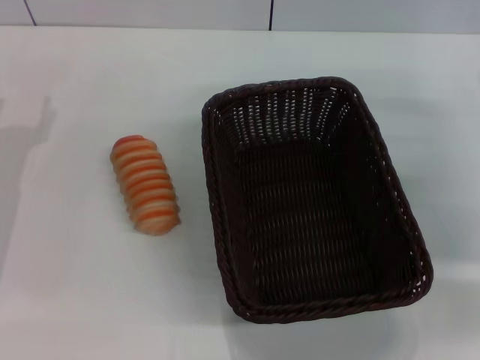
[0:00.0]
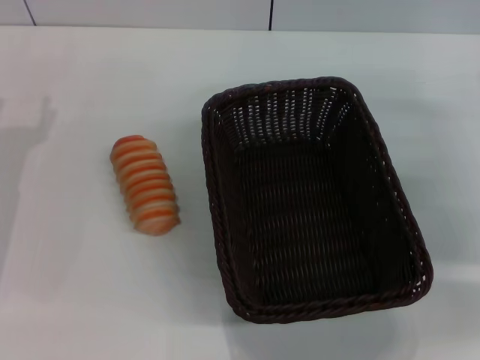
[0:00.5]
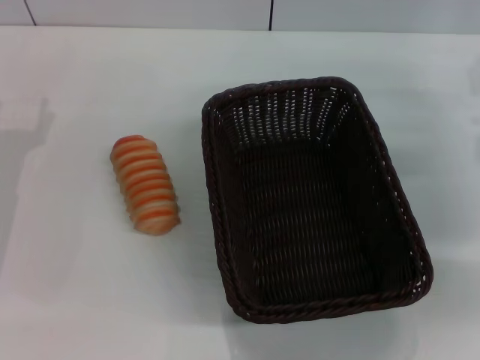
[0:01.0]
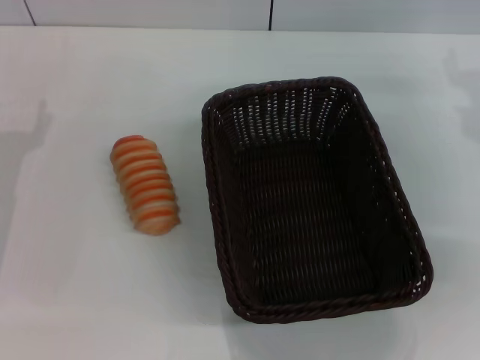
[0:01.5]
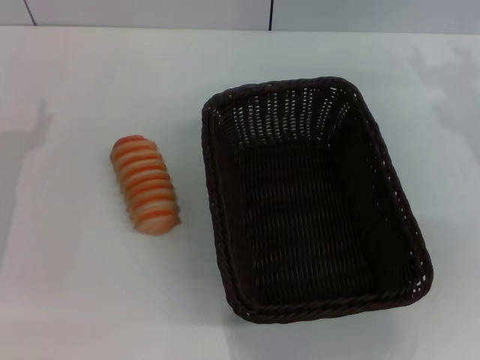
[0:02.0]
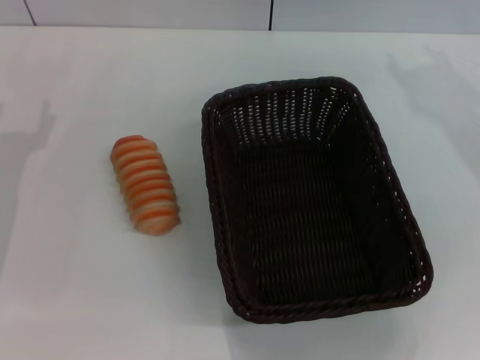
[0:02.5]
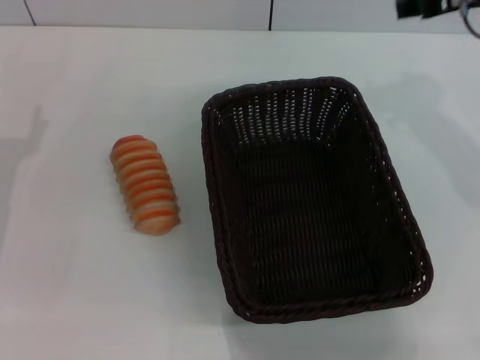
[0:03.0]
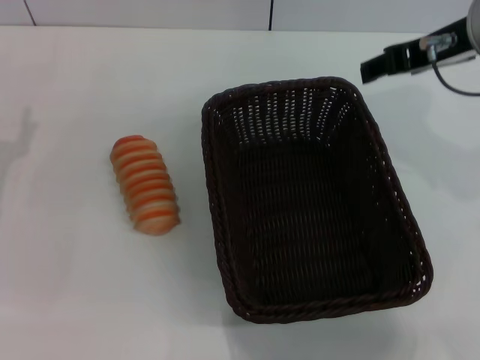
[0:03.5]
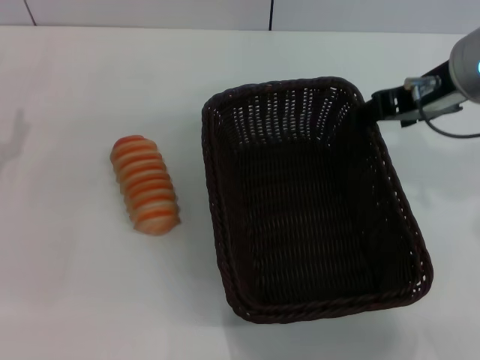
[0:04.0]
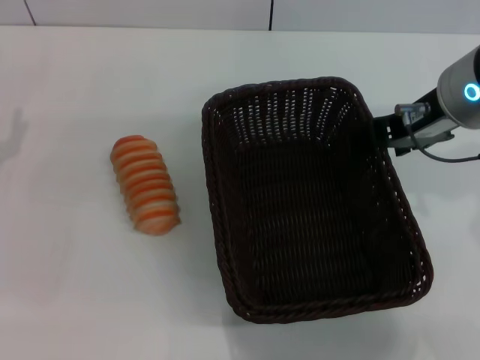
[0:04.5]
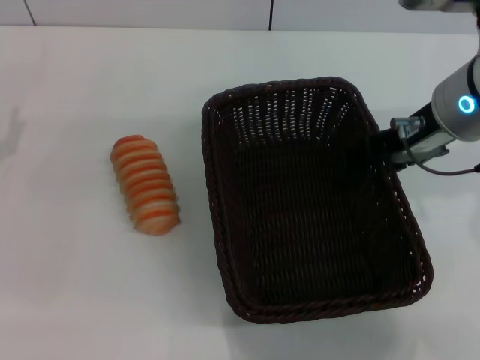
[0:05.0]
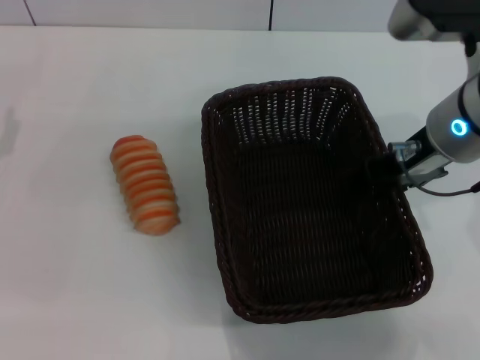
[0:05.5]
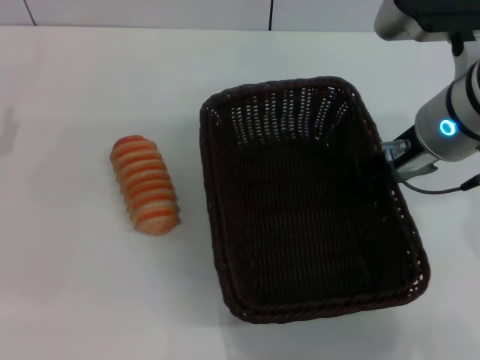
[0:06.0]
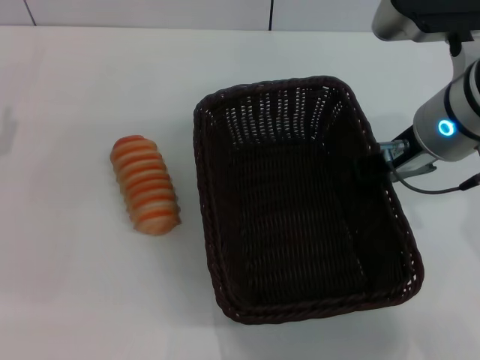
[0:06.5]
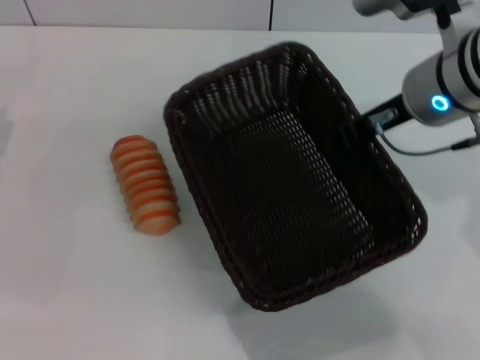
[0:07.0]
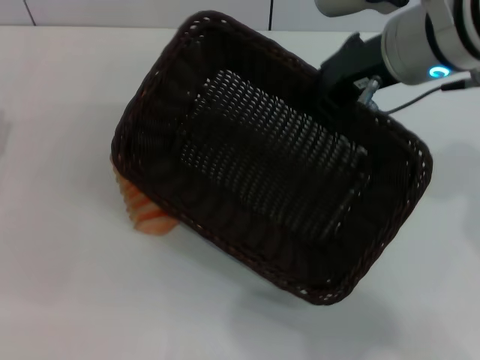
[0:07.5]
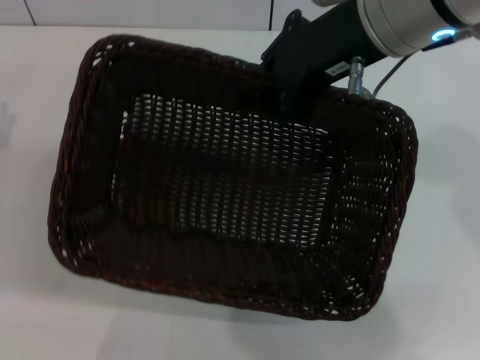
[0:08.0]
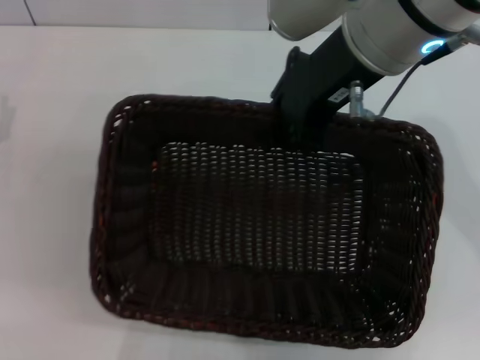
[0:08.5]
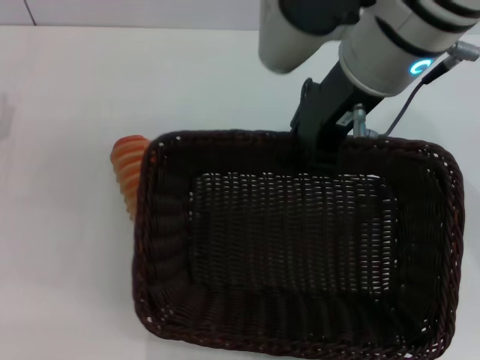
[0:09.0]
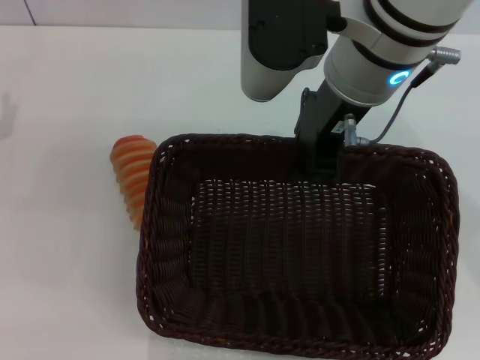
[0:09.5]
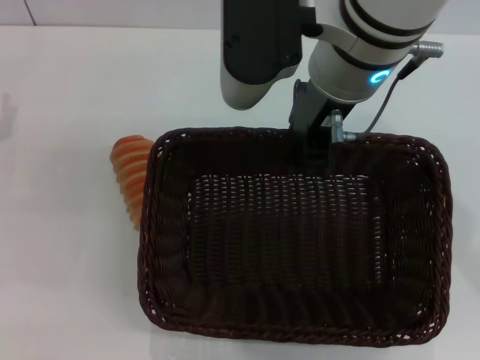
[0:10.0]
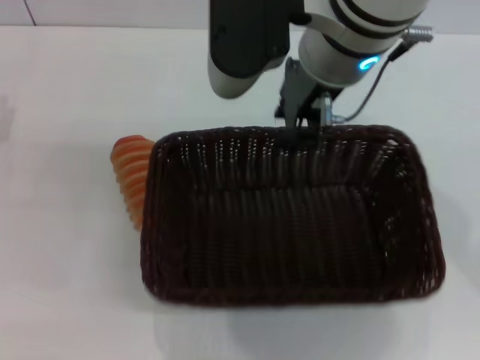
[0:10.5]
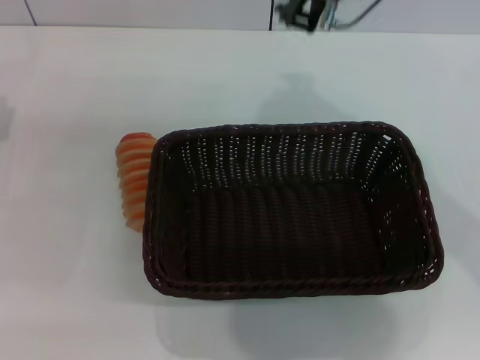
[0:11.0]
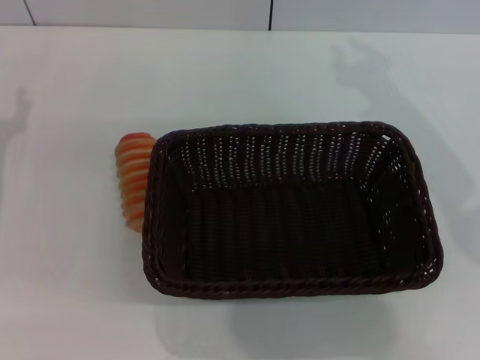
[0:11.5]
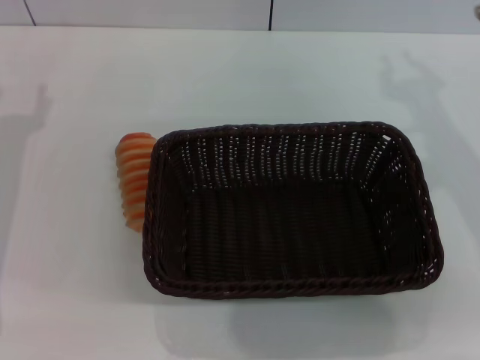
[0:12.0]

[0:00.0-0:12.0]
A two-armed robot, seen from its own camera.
Step, 0:00.0 to 0:07.5: Pick up the dark basket with the right gripper.
Step, 0:08.0 to 0:10.5: Place the dark basket in the center of view with the right gripper.
0:02.0 to 0:04.0: The right gripper travels to the left and upward by some 10 cm.
0:04.0 to 0:06.0: The right gripper closes its fingers.
0:06.0 to 0:08.0: The right gripper moves upward and to the left, approximately 10 cm, and closes its fingers.
0:08.0 to 0:10.0: The right gripper ends up about 5 cm from where it was.
0:10.0 to 0:12.0: The right gripper goes some 15 cm to the right.

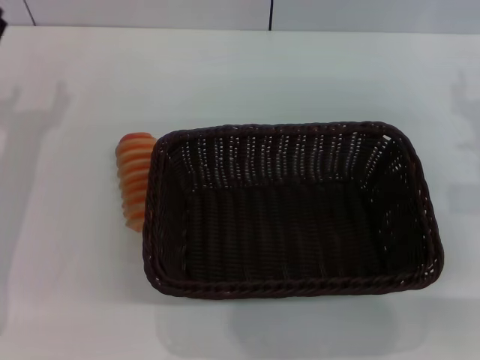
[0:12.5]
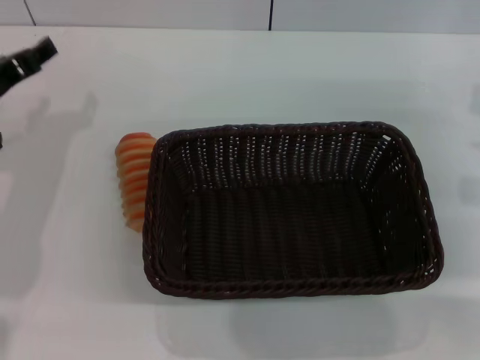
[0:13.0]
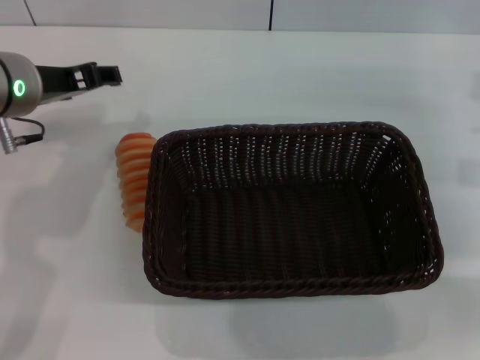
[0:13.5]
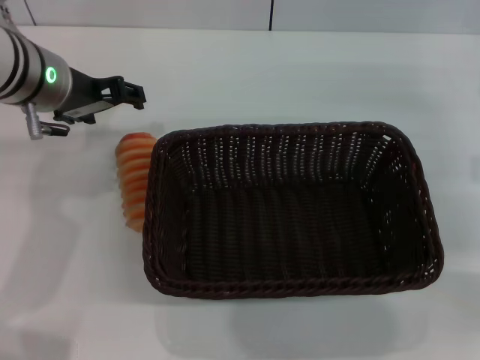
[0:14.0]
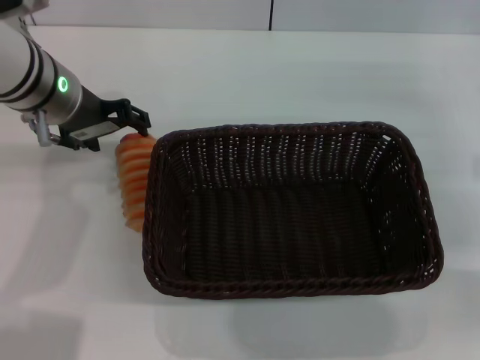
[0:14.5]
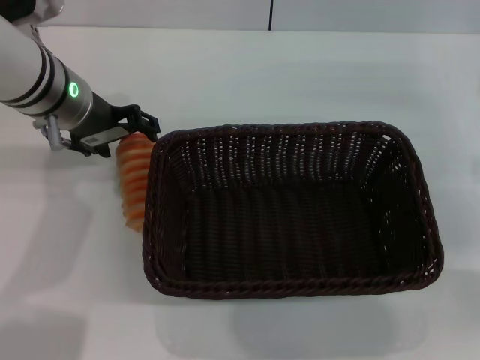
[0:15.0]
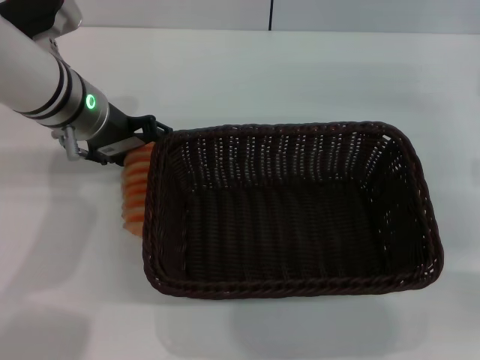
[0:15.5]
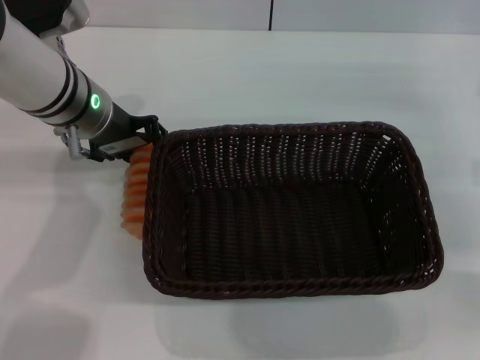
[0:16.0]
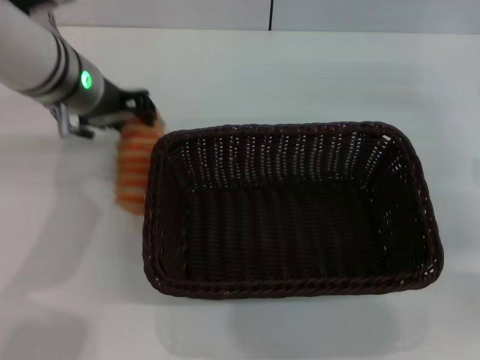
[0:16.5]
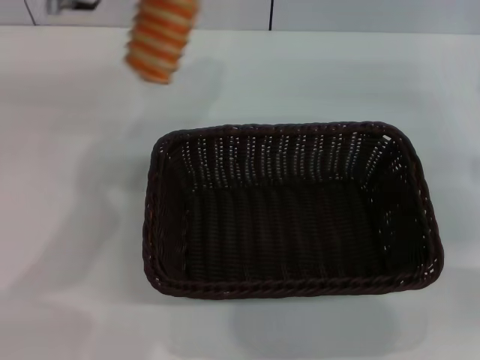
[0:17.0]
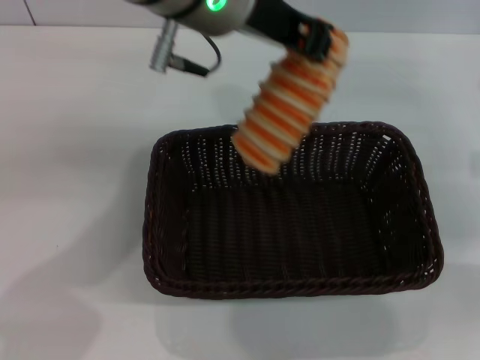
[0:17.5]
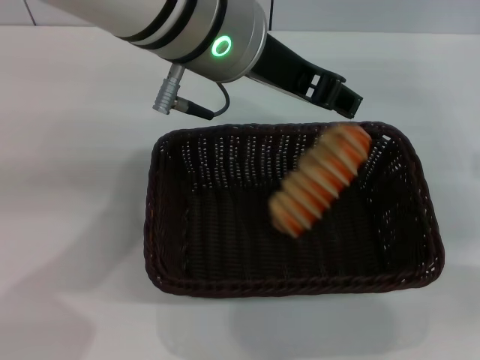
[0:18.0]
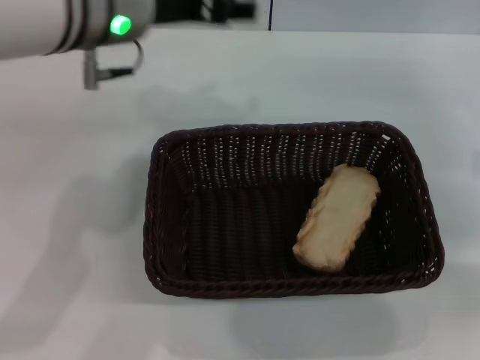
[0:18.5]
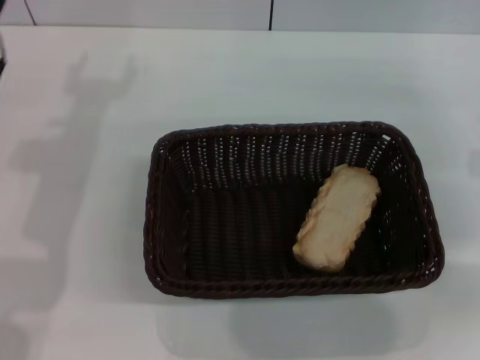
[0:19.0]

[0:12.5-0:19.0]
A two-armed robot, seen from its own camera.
Step, 0:12.5 to 0:16.5: Pick up the long bread with the left gripper.
Step, 0:17.0 to 0:18.0: Place the long bread into the dark basket with the left gripper.
0:12.5 to 0:14.5: The left gripper is displaced to the right, upward and forward by about 15 cm.
0:14.5 to 0:17.0: The left gripper goes some 15 cm upward and to the right, and closes its fingers.
0:17.0 to 0:19.0: The left gripper is displaced downward and to the left by roughly 15 cm, and opens its fingers.

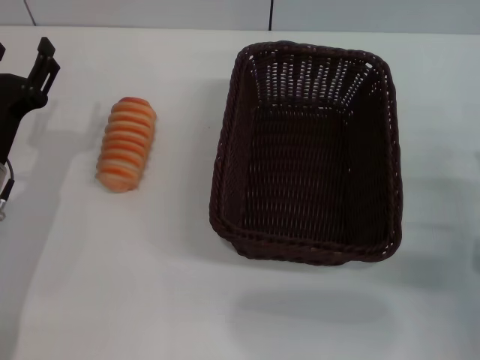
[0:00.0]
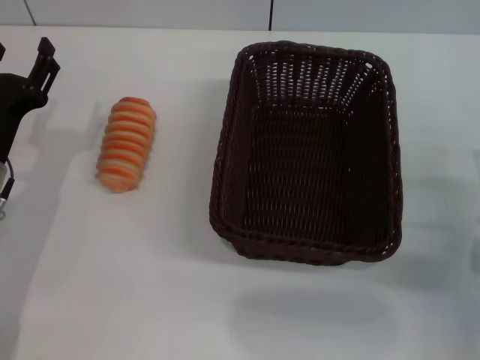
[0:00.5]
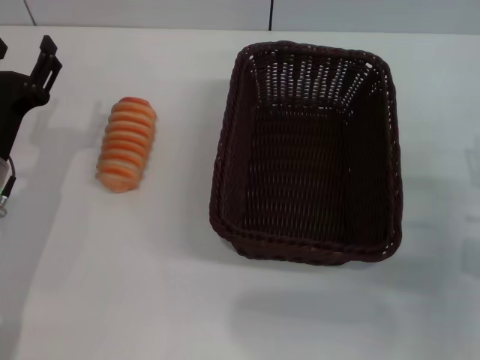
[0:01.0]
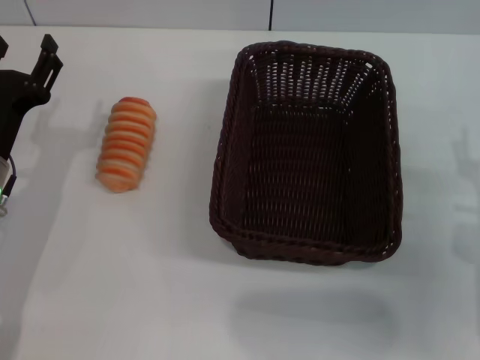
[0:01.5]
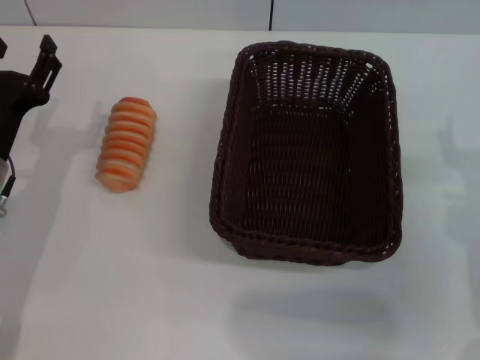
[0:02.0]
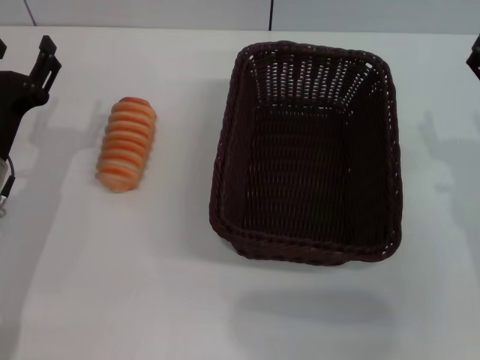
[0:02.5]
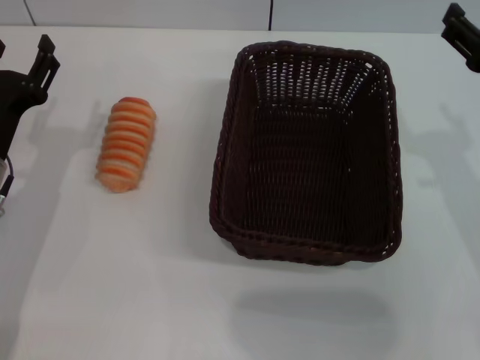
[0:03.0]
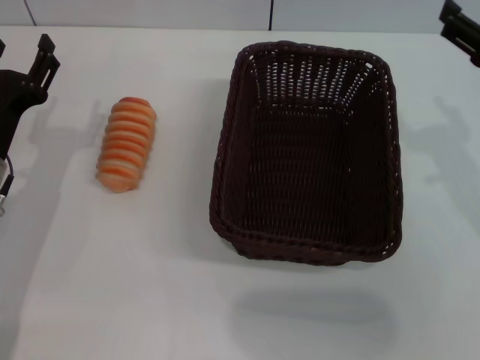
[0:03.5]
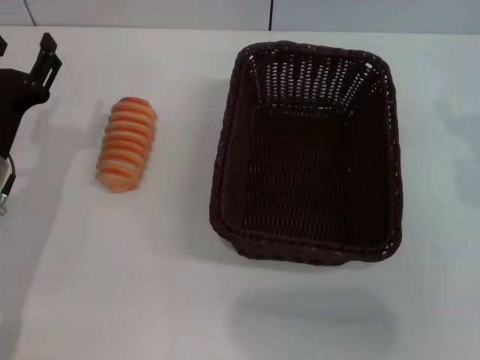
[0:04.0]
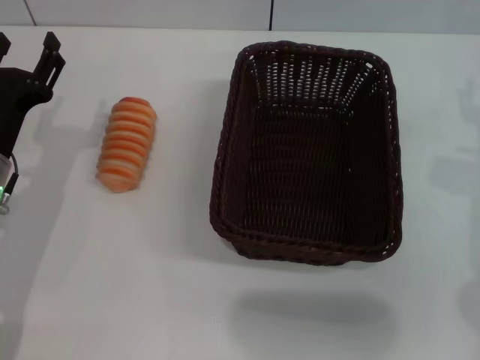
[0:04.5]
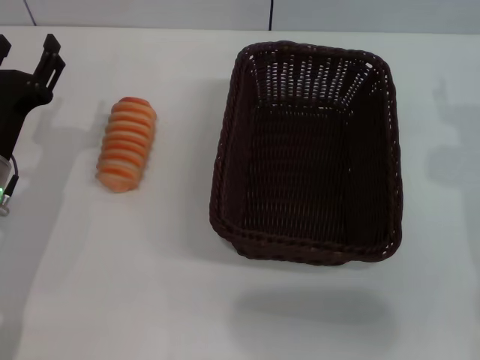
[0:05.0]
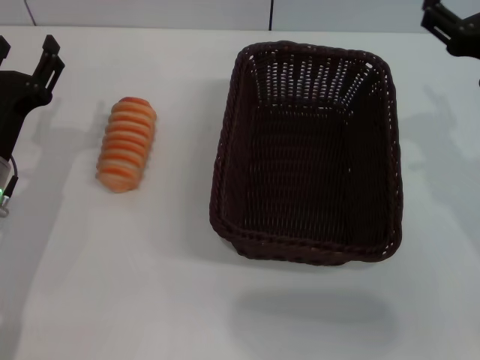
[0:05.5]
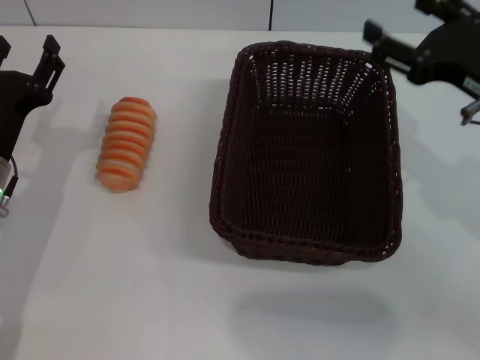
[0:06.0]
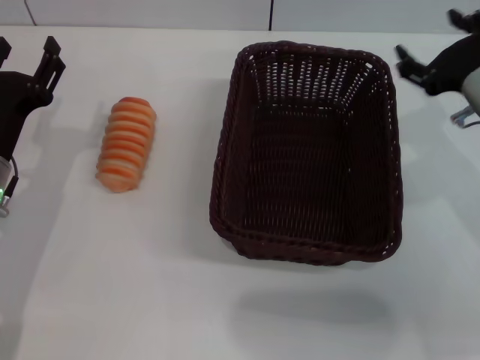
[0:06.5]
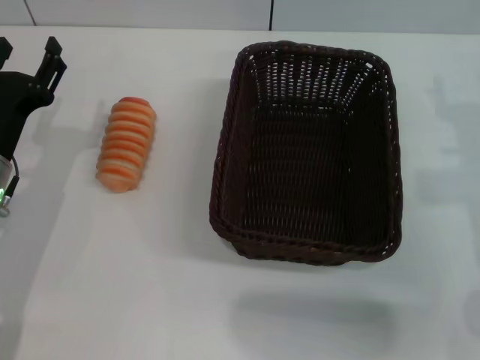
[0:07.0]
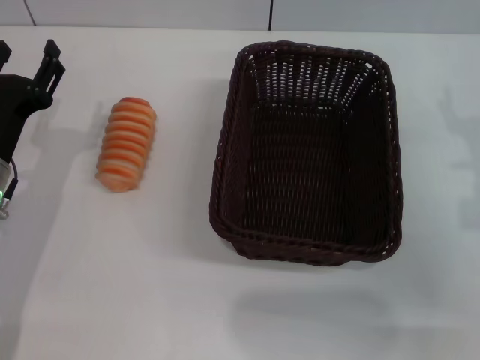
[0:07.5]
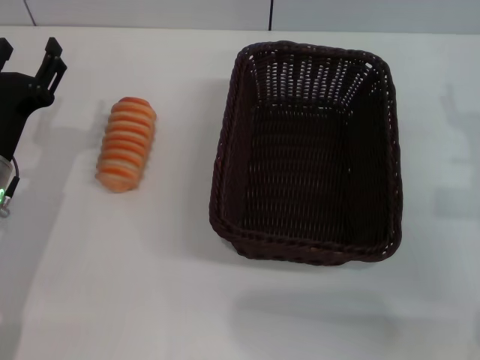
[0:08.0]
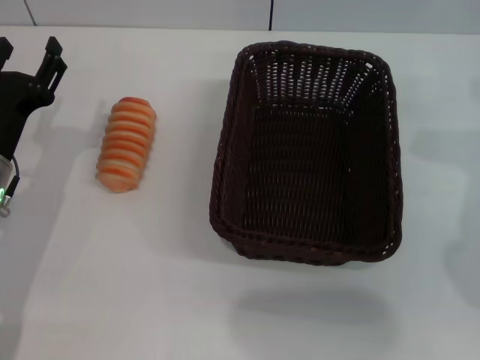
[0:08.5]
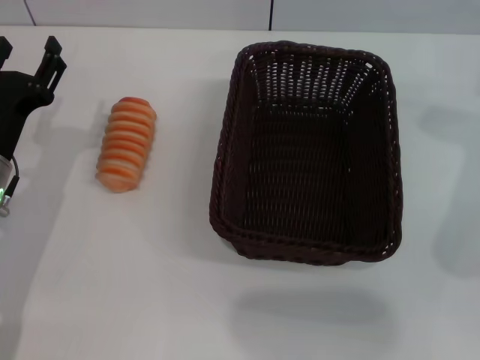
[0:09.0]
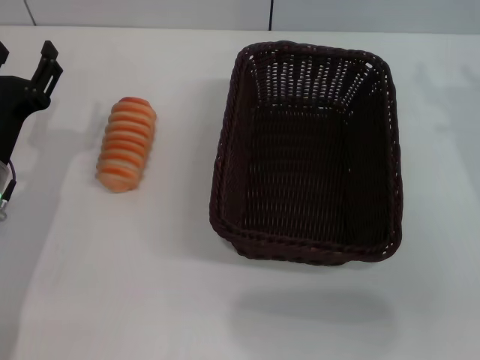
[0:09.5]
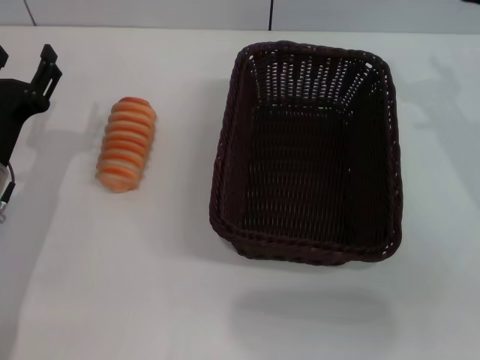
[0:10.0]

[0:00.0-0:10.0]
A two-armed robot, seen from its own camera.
0:00.0 to 0:02.0: The right gripper is displaced upward by some 5 cm.
0:06.0 to 0:08.0: The right gripper heads downward, covering some 5 cm.
